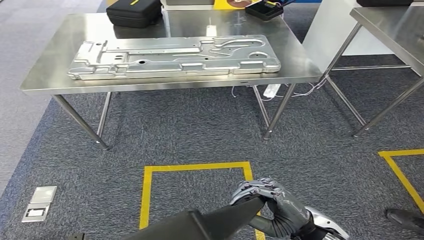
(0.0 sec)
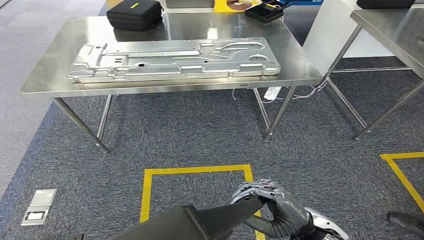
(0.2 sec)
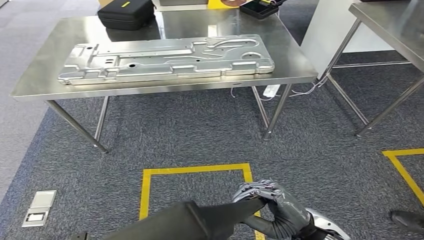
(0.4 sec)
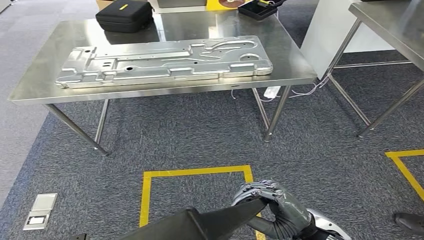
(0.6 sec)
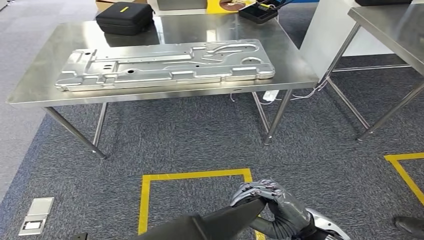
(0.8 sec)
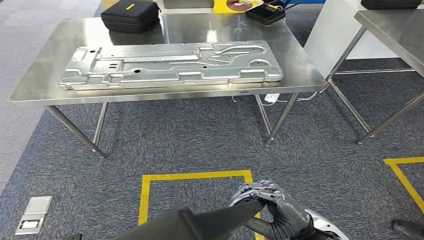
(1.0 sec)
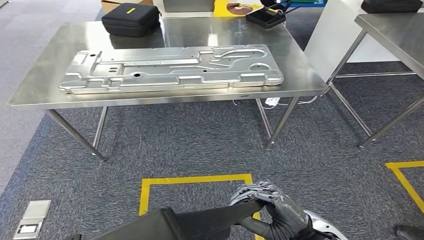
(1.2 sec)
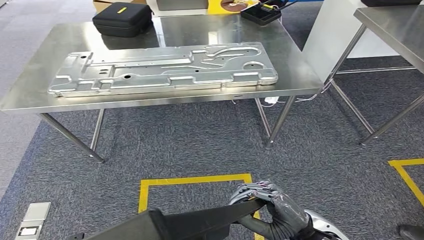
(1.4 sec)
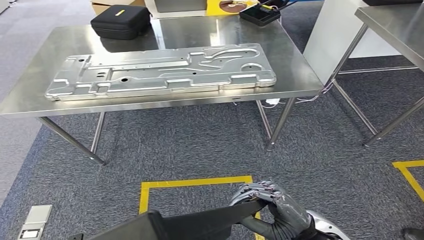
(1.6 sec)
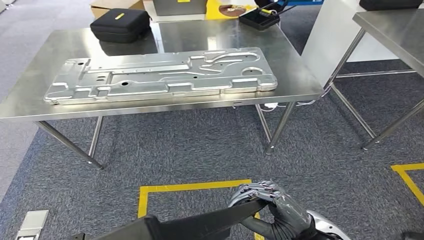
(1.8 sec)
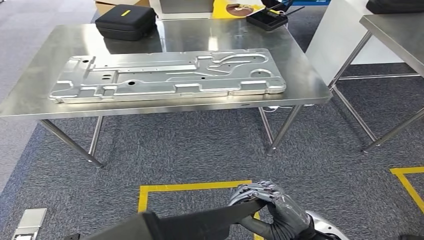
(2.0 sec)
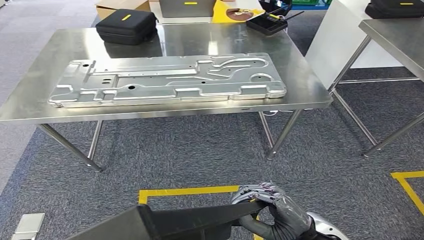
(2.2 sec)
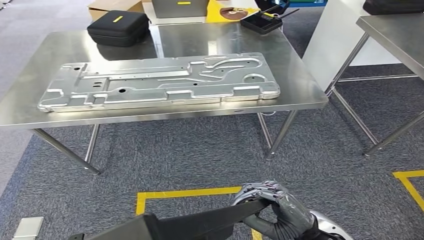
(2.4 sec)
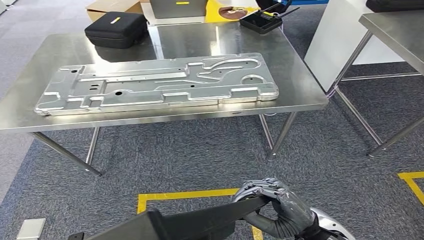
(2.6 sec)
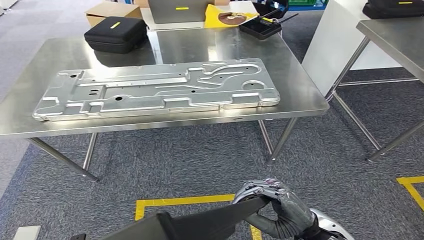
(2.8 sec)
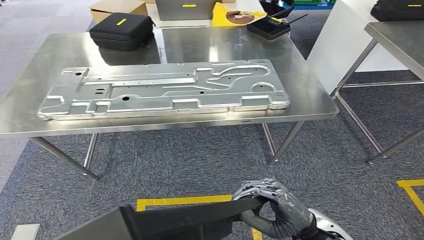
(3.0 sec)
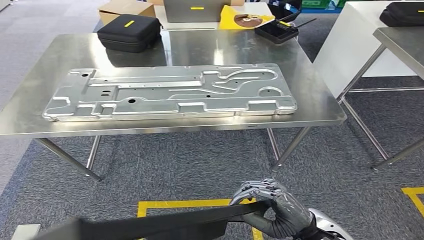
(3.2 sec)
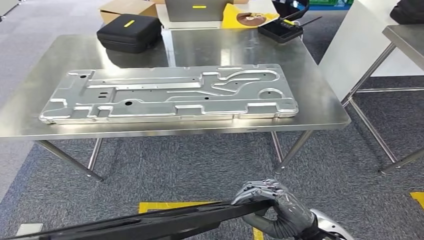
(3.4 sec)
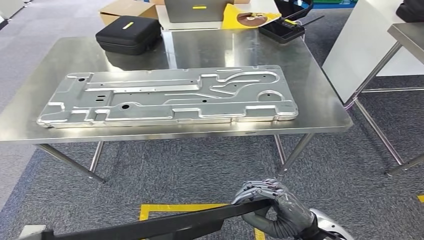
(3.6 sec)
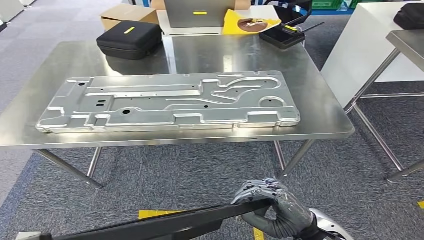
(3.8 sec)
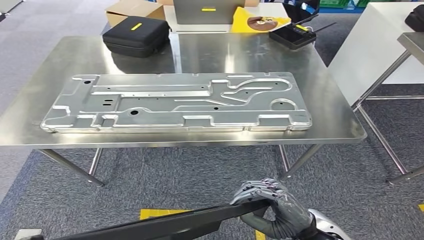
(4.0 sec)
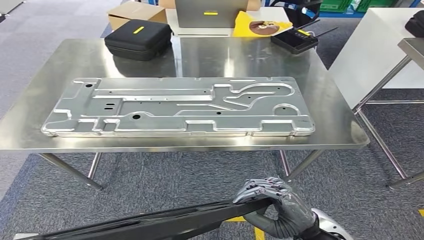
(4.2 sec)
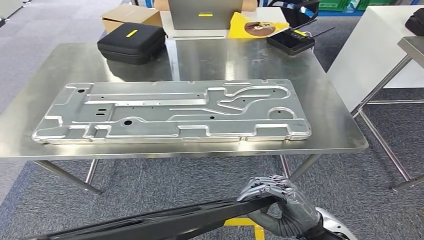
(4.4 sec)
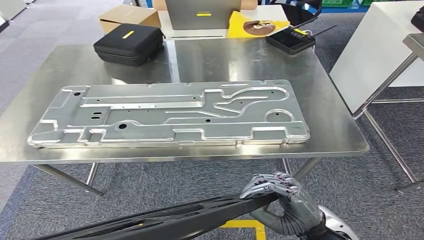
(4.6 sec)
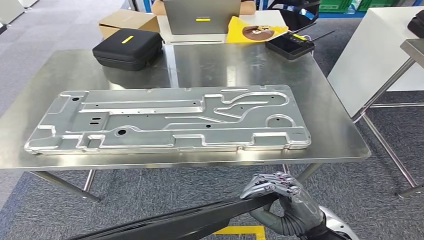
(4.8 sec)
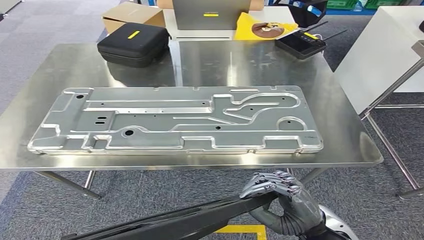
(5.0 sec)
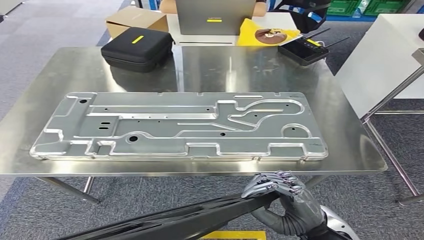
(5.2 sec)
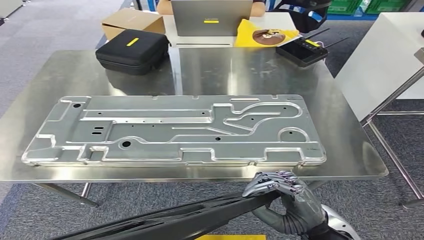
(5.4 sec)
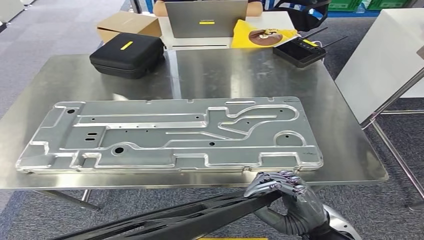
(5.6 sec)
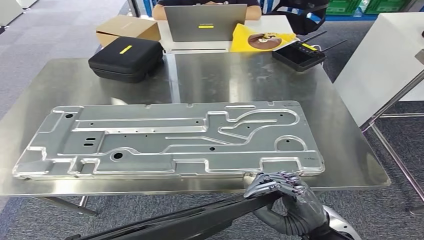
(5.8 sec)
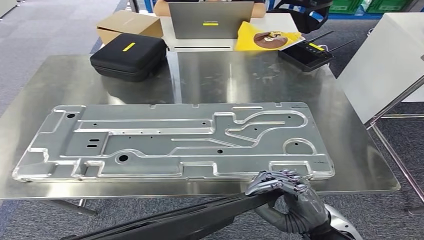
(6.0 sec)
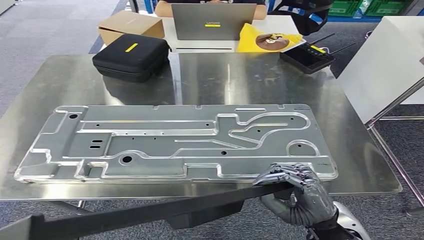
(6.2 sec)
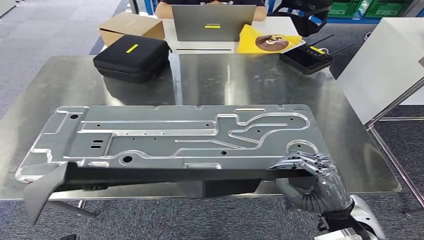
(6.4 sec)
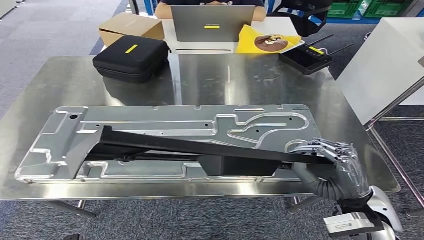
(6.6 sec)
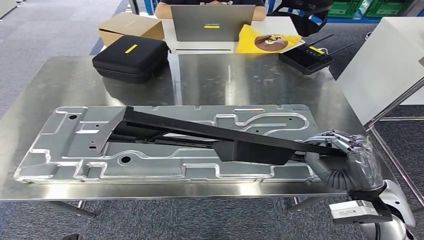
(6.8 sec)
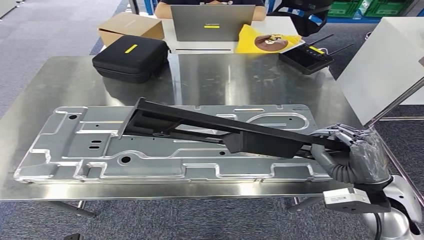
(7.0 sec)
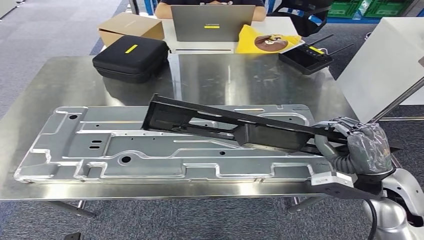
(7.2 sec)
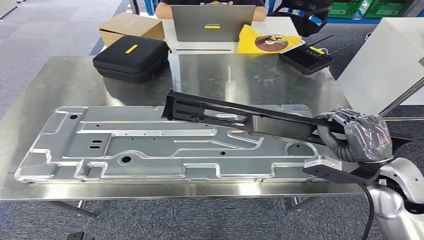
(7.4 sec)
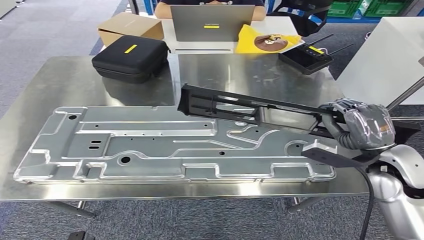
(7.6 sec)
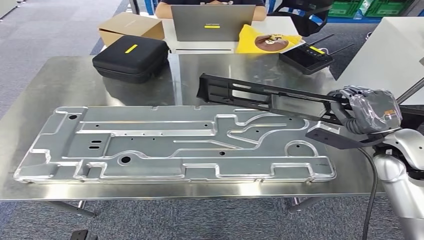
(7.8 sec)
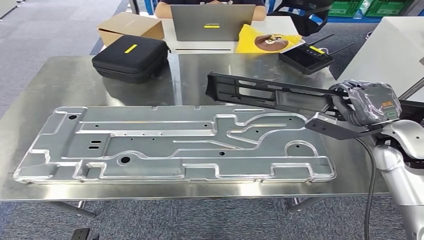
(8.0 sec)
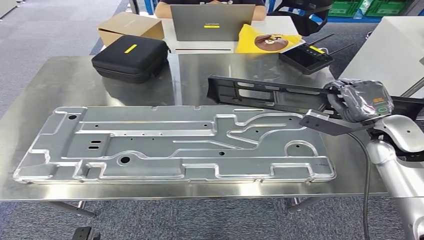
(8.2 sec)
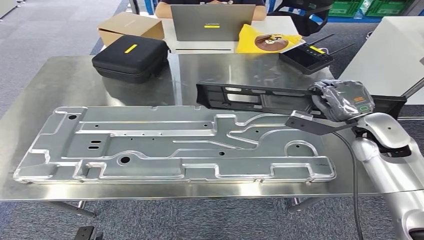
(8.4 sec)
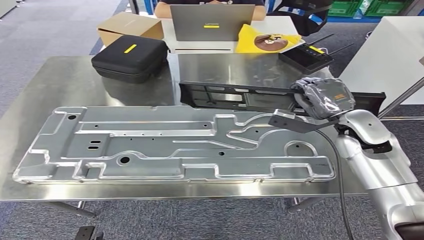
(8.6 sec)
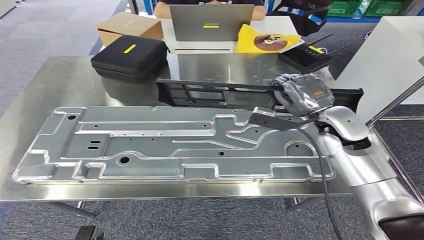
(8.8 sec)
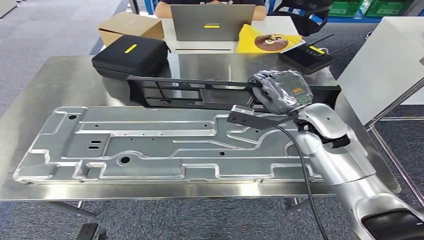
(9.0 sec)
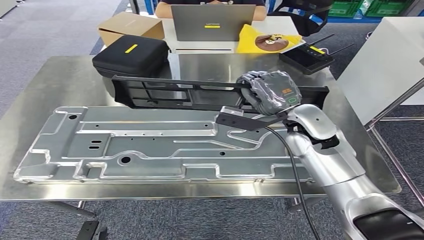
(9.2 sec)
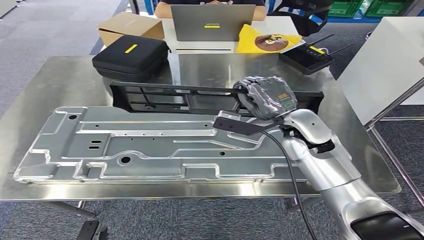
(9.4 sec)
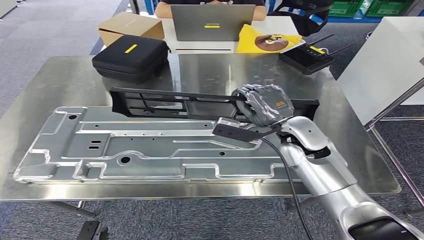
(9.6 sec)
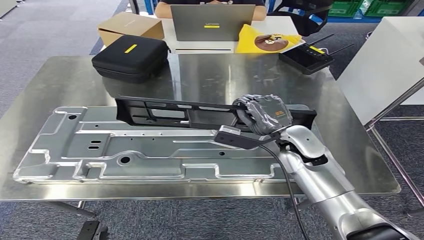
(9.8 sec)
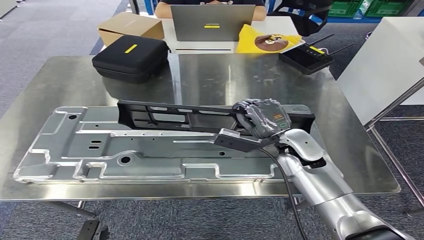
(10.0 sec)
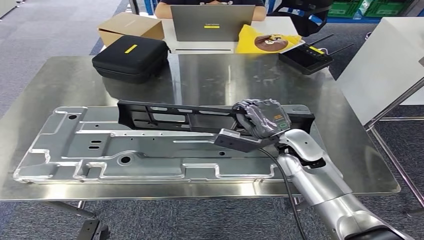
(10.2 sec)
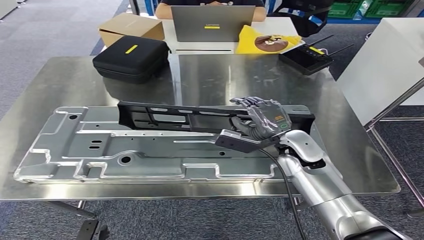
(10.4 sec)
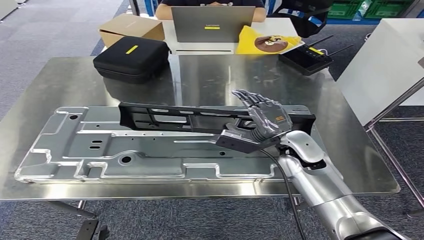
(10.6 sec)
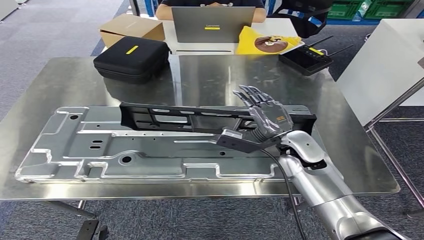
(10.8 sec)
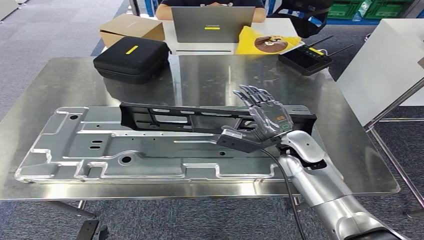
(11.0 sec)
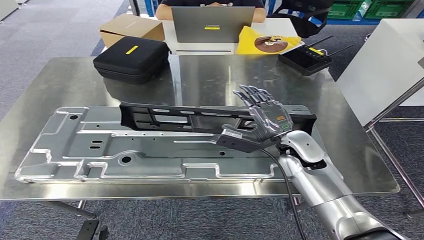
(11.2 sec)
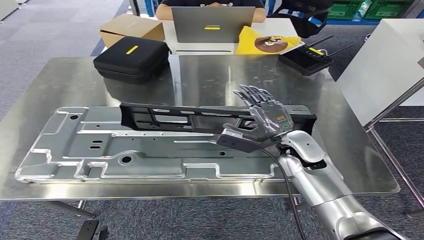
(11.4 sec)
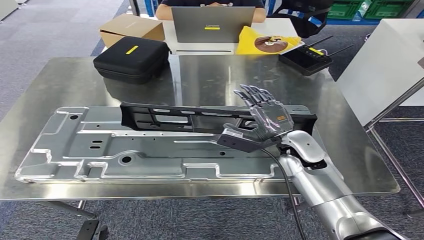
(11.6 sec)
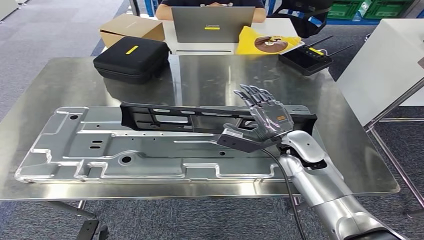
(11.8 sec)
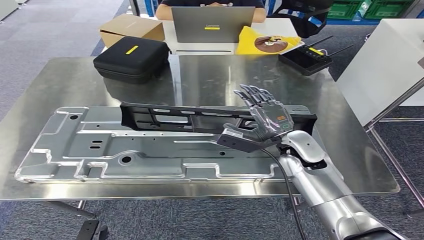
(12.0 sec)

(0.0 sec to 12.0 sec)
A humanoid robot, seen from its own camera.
Step, 0.0 sec - 5.6 sec: Move the large material to the workbench.
7.6 sec - 9.0 sec: The right hand shifts some 15 cm to the left and forward.
10.4 sec - 12.0 sec: Both hands stay about where they are.

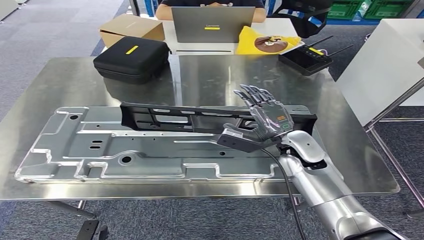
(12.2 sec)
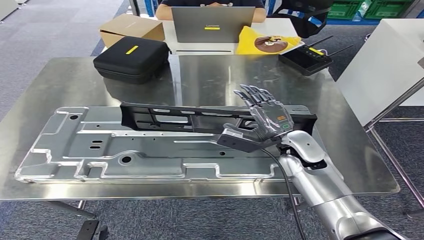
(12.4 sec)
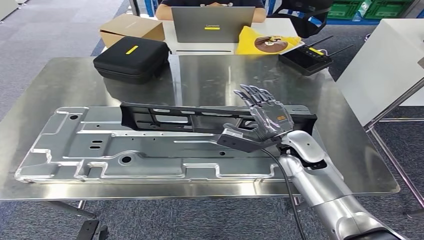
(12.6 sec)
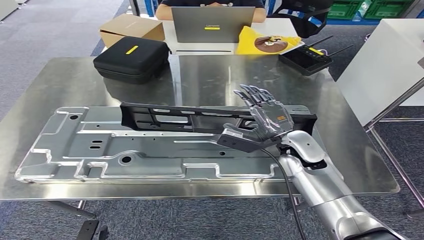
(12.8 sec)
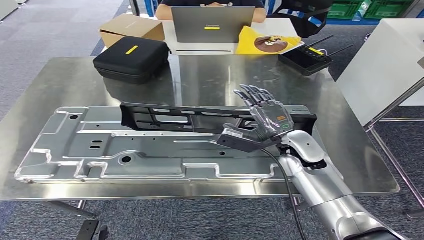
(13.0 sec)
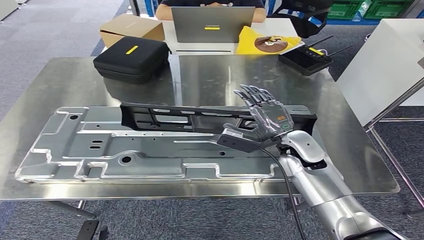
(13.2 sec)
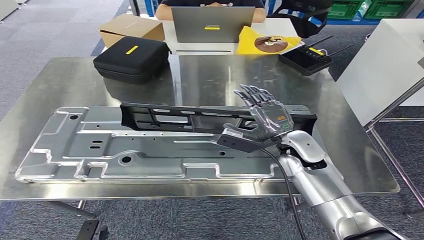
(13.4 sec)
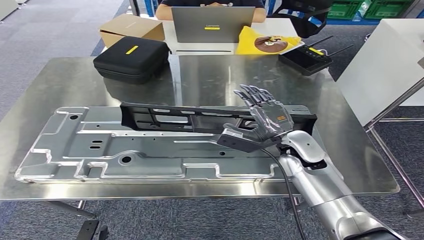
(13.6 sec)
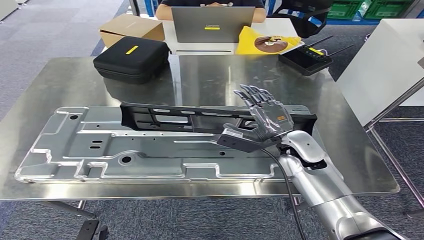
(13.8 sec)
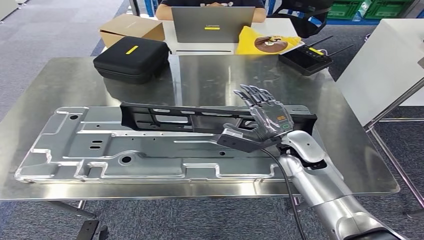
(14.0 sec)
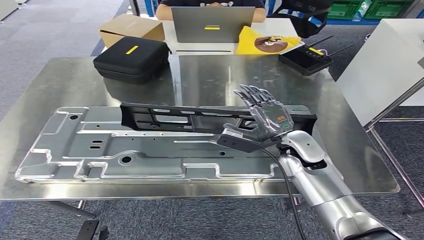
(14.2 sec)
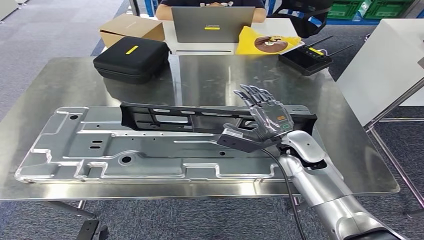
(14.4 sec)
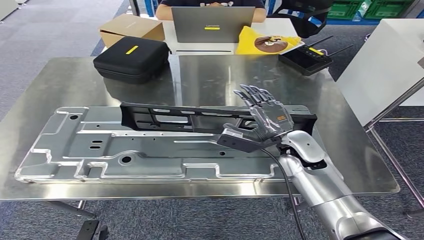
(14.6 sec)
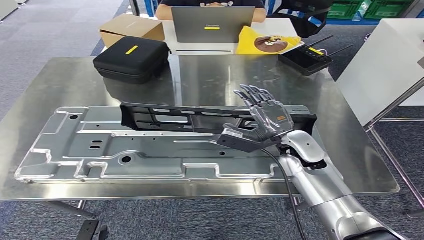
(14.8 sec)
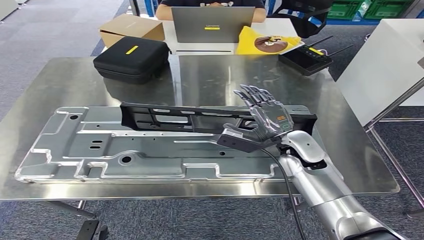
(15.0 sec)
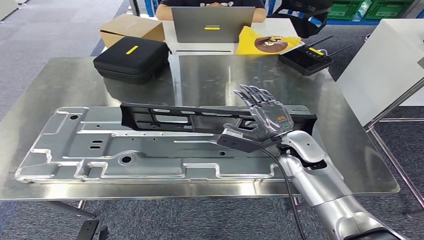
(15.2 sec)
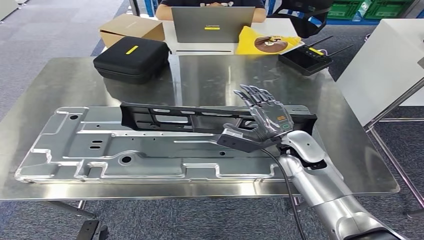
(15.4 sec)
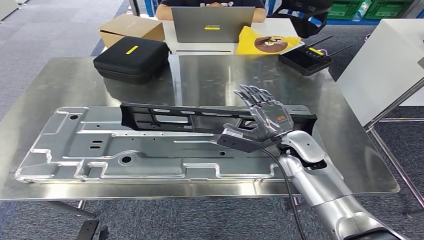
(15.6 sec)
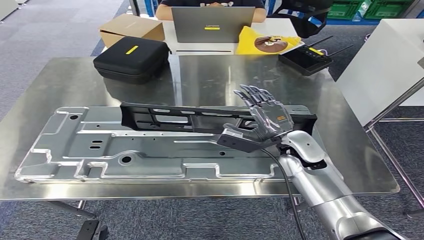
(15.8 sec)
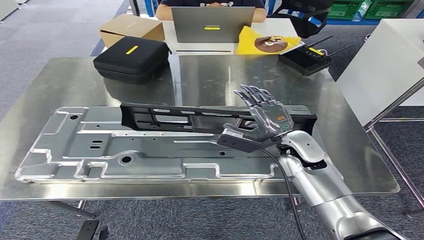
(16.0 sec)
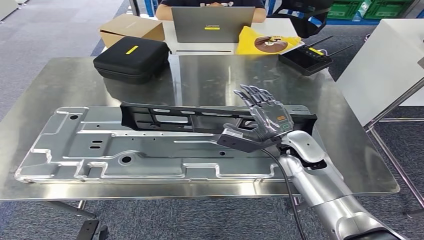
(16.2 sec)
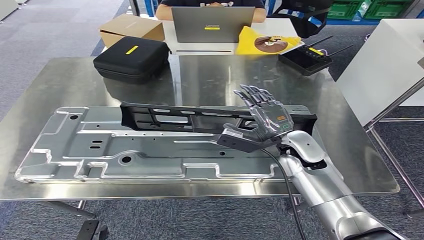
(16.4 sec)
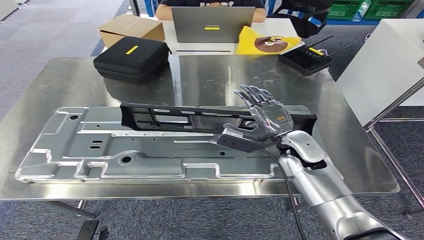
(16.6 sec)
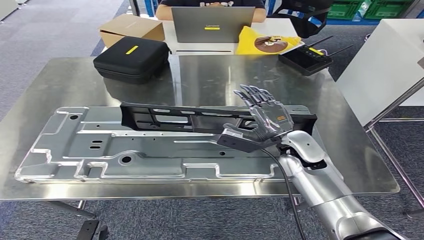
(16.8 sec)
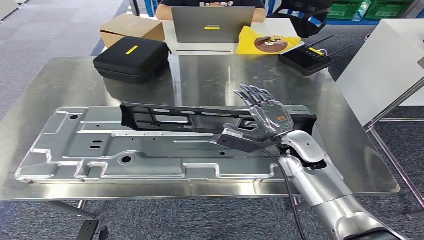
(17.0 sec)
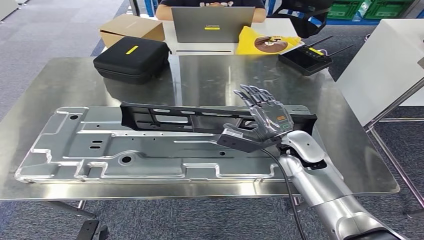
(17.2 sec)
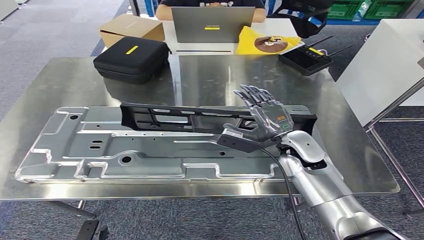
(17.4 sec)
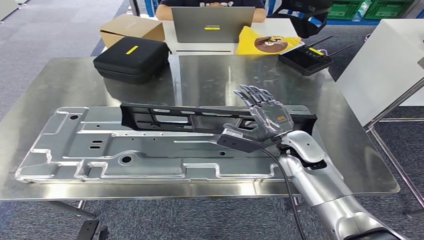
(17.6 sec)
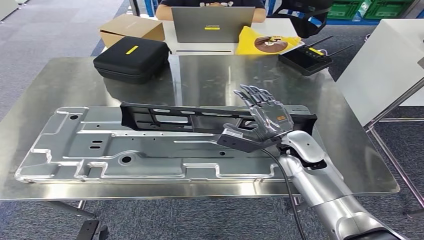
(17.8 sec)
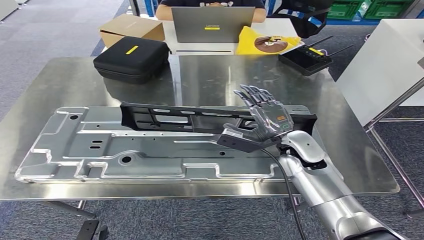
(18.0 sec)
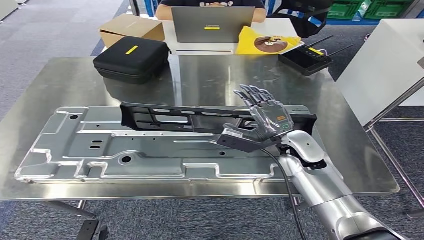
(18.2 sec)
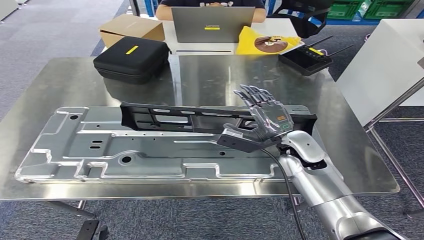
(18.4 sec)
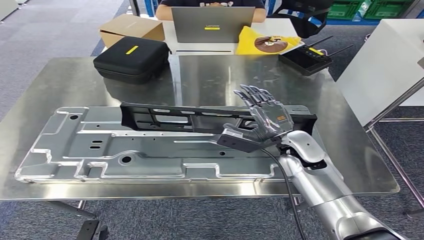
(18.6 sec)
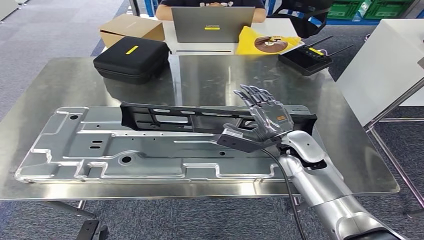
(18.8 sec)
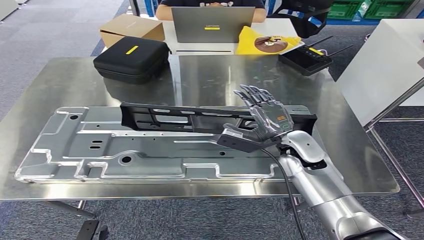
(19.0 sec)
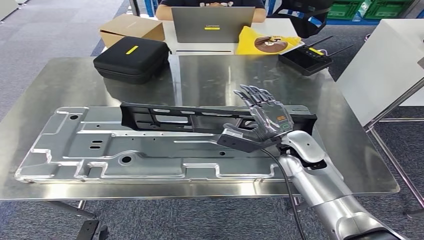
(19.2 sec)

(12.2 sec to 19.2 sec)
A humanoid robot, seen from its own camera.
12.2 sec - 19.2 sec: Both hands stay about where they are.
